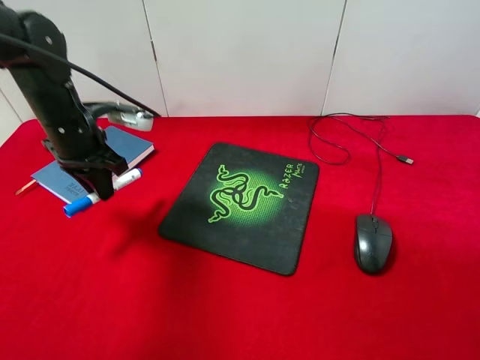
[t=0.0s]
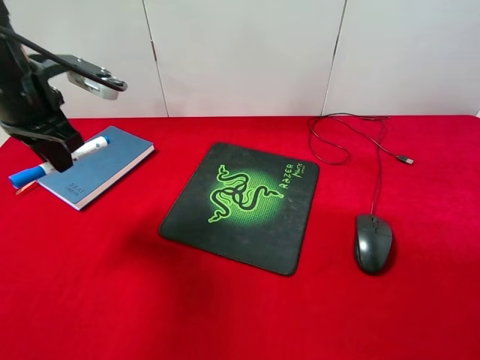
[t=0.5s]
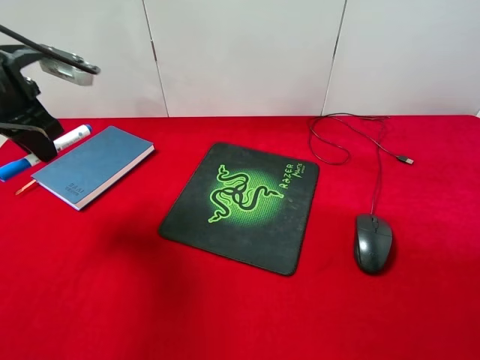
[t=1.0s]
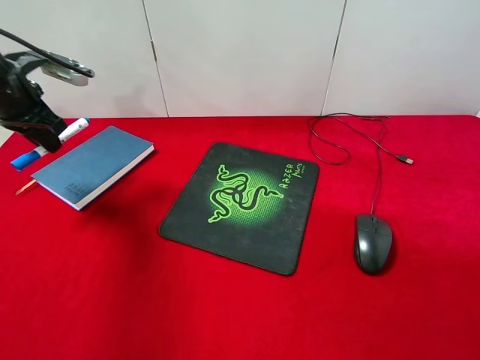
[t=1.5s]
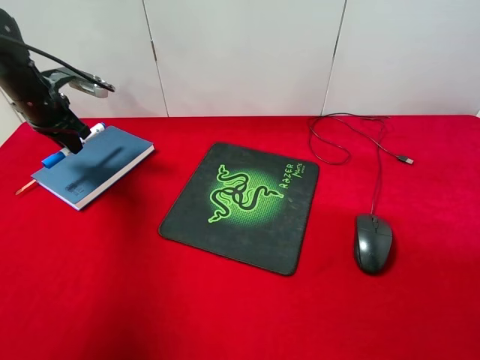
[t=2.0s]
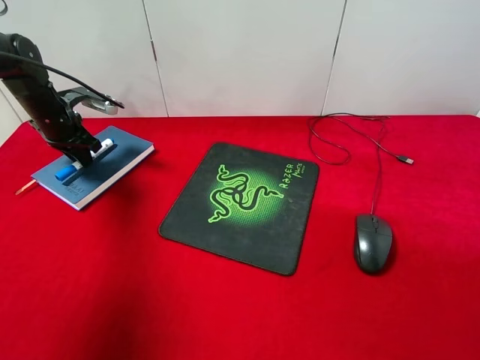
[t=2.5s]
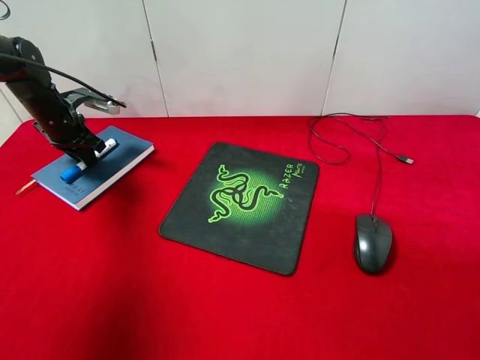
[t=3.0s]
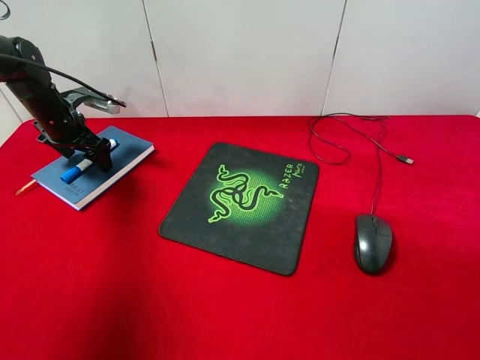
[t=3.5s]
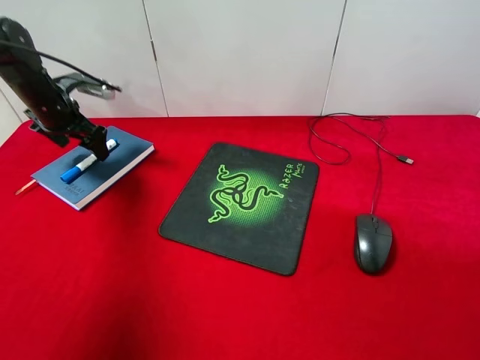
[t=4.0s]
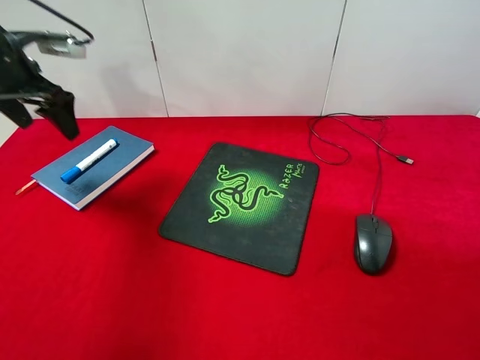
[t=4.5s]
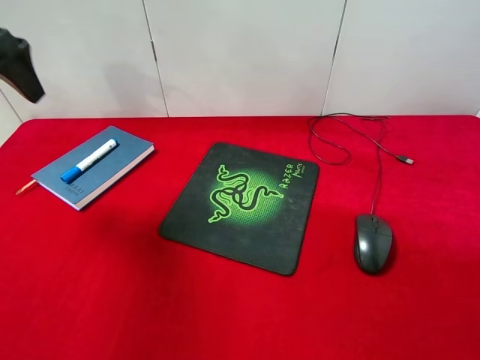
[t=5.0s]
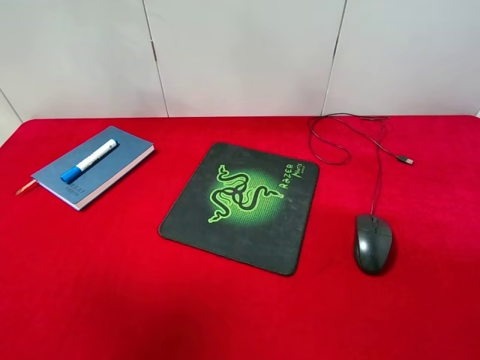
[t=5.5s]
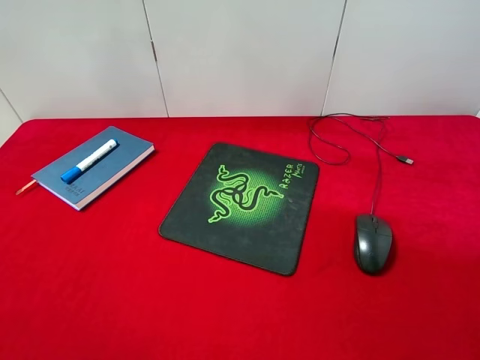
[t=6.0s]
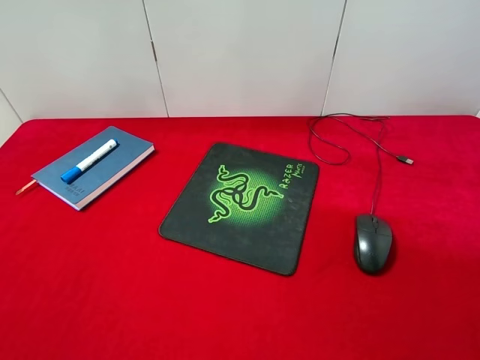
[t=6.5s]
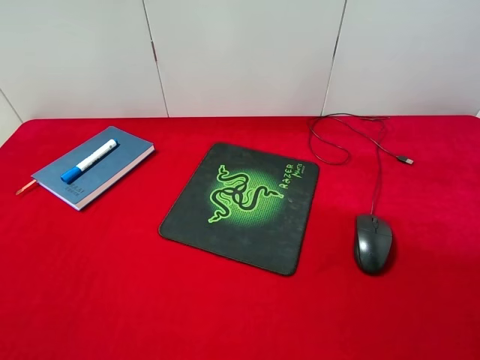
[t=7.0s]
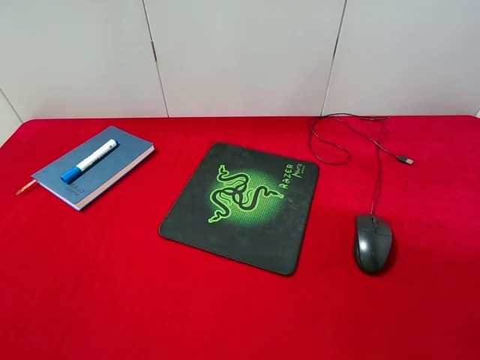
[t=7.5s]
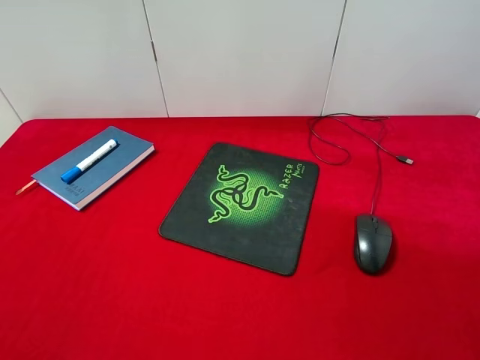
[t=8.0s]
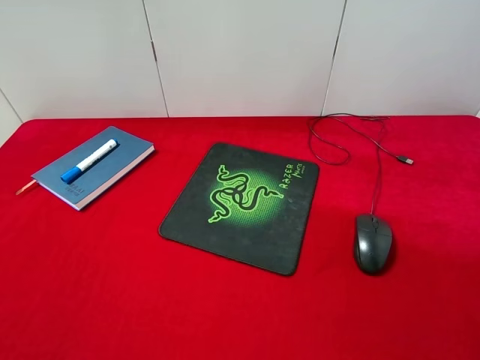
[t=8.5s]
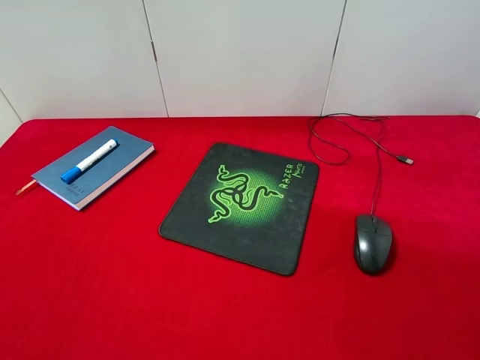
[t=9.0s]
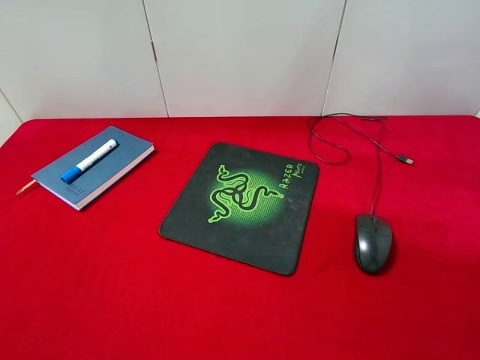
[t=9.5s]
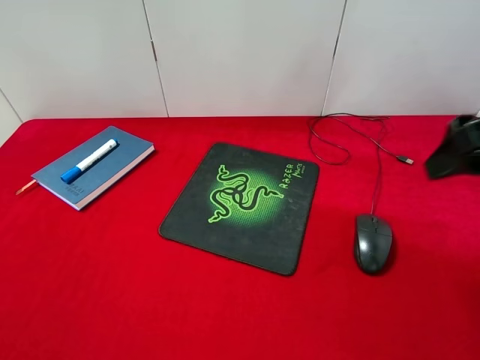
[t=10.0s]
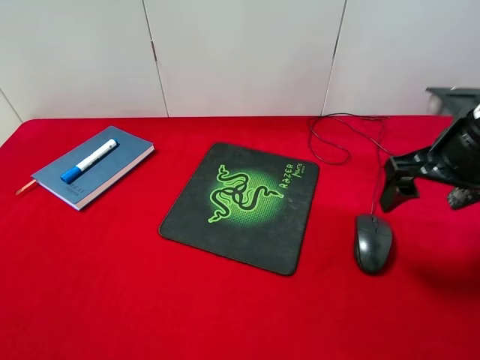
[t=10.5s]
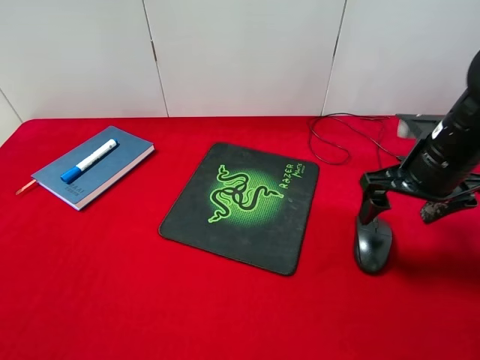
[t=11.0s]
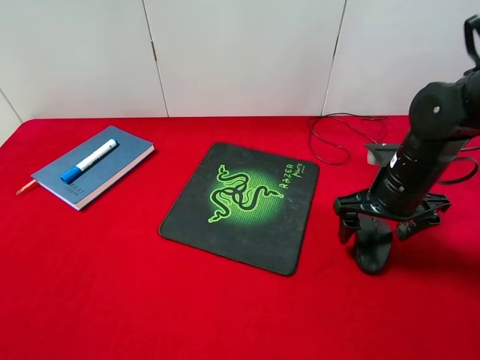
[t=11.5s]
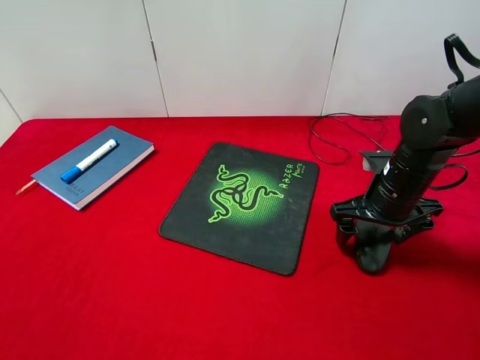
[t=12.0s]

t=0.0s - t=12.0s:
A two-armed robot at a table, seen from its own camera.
Step, t=0.0s - t=3.5s: Place the marker pen on the notebook with left gripper.
t=0.0s - t=2.0s: The left gripper is displaced to the left and forward by about 15 cm.
t=2.0s - t=4.0s: The left gripper opens.
t=4.0s - t=6.0s: The left gripper heads backward and upward, covering roughly 40 cm.
t=8.0s - t=10.0s: The right gripper travels forward by approximately 20 cm.
t=10.0s - t=12.0s: The right gripper travels downward and forward by some 20 cm.

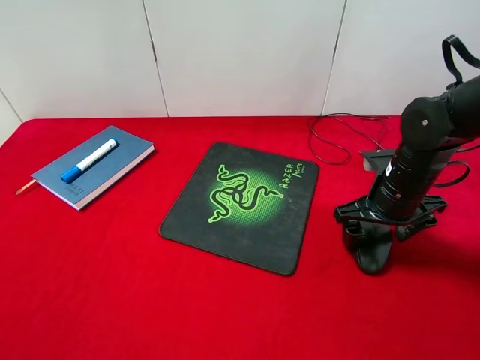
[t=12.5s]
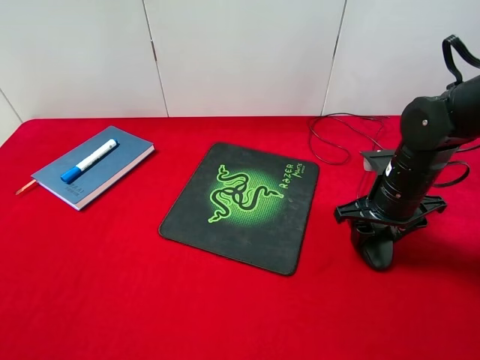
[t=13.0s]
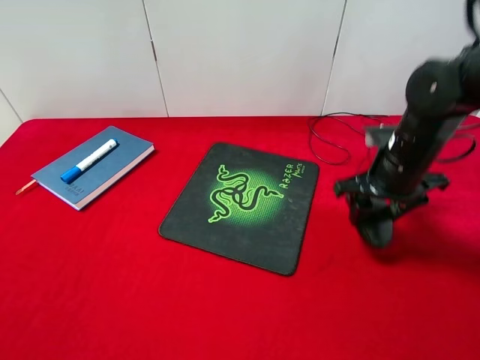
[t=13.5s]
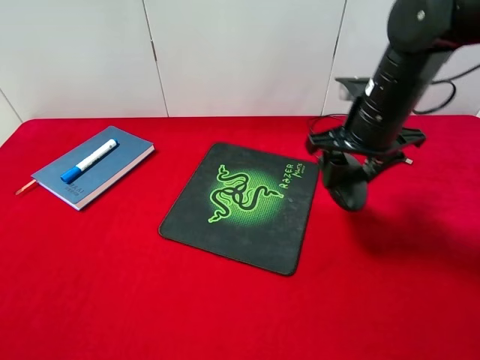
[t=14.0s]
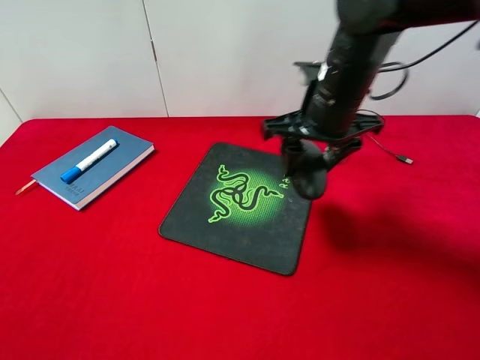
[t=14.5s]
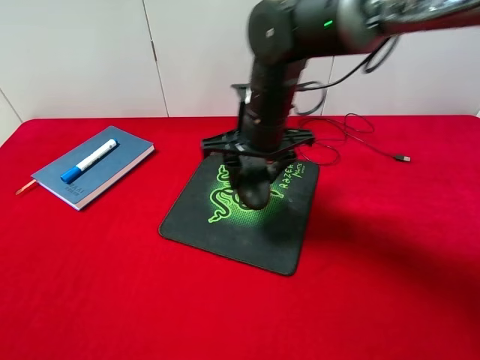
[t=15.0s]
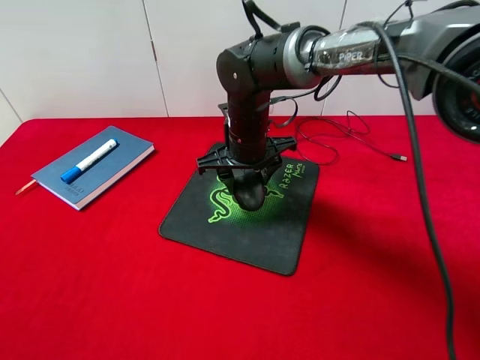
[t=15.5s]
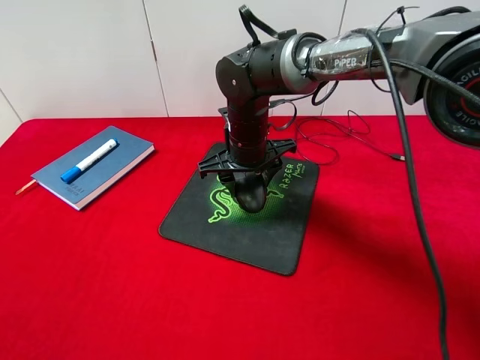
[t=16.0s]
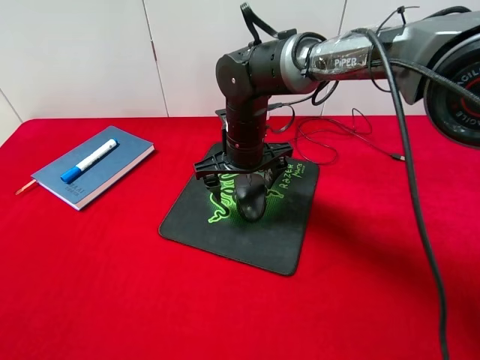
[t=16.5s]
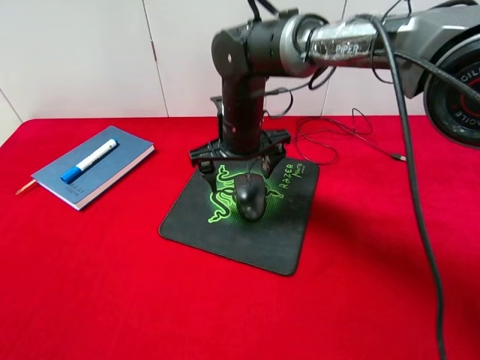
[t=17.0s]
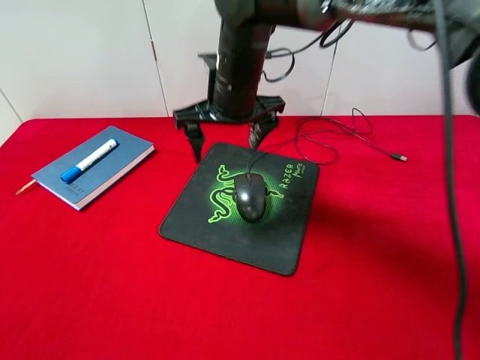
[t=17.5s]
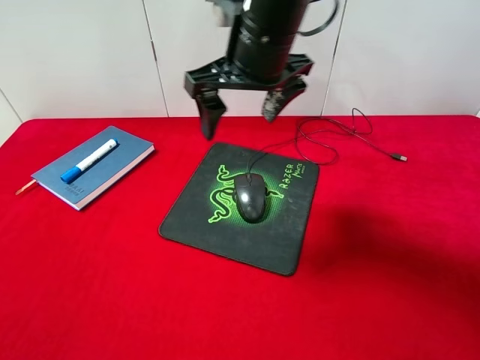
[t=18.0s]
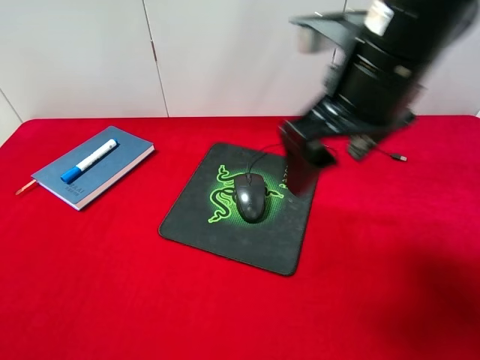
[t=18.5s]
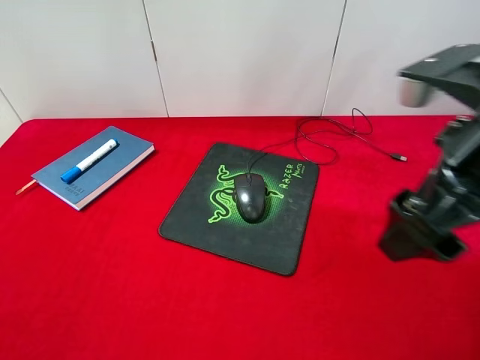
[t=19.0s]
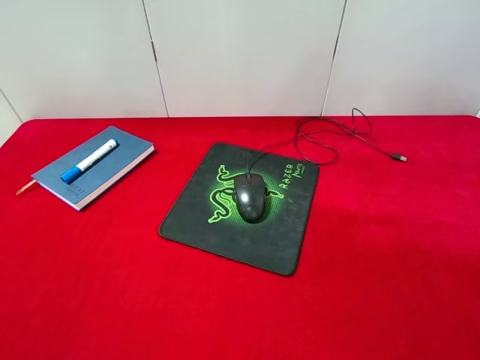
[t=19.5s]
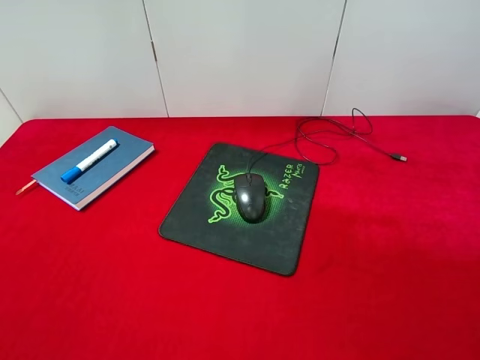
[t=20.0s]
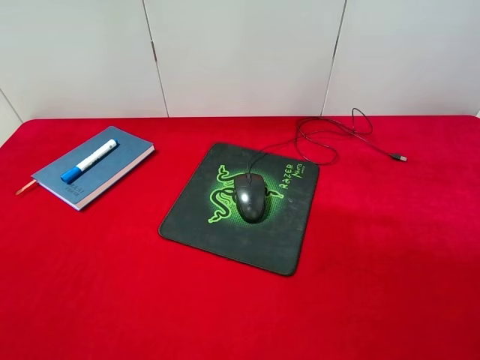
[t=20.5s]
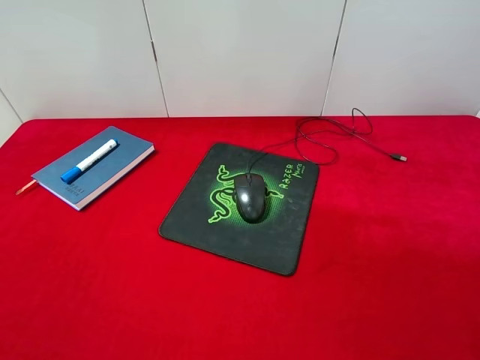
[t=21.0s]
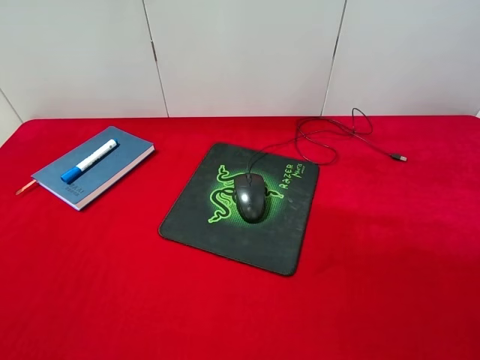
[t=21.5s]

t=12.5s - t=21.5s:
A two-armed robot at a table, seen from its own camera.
Step, t=14.0s - t=17.0s: Place the mouse on the mouse pad with right gripper.
t=12.5s - t=14.5s: The right gripper goes some 15 cm to the left and upward, and closes its fingers.
t=14.5s - t=17.0s: The right gripper heads to the left and downward, covering some 10 cm, and opens up.
t=17.0s - t=19.5s: The right gripper heads backward, to the right and upward, covering some 40 cm.
